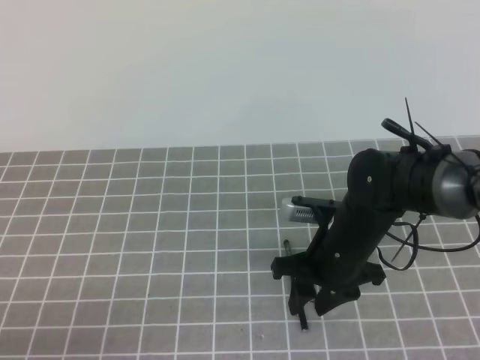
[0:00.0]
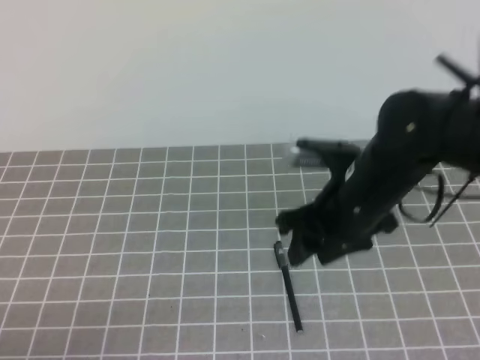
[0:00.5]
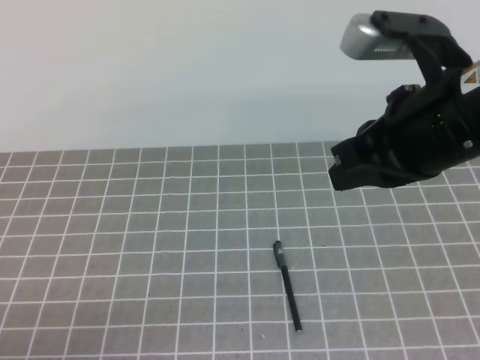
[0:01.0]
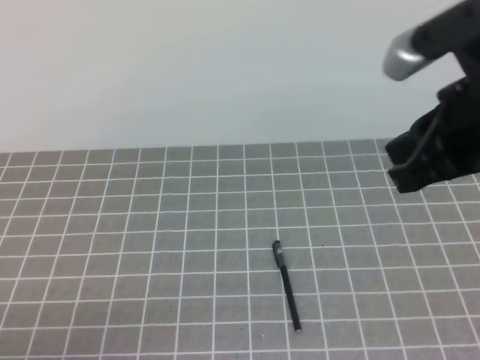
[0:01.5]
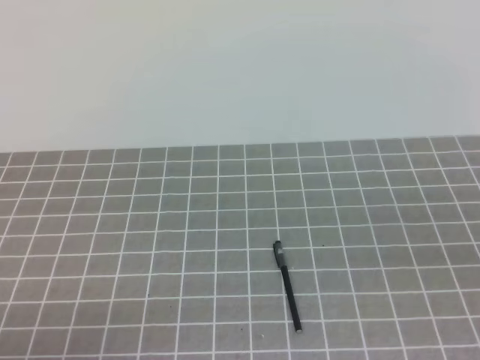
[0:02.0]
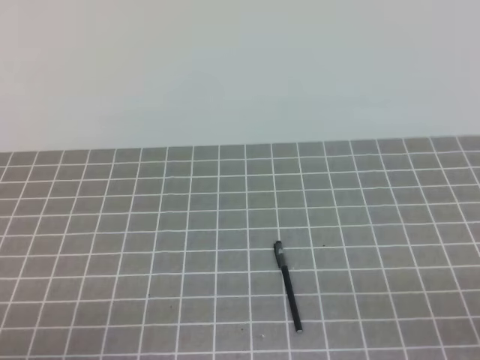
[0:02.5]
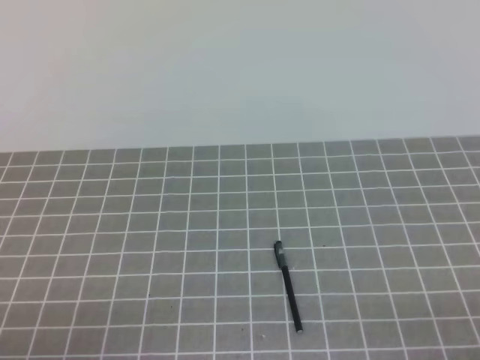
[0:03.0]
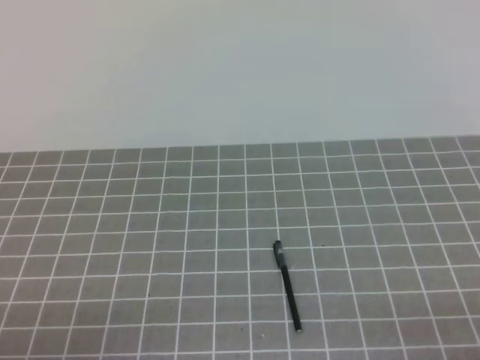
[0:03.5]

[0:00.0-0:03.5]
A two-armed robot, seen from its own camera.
Task of the whole recording: on the grey tablecloth, hold the pen cap in one hand and the pen in the other, then cover the pen cap.
Step, 0:00.0 to 0:03.5: Put the cap on the pen.
0:00.0 to 0:02.0: The right gripper moves backward, to the right and upward, approximately 30 cm, and closes.
0:02.0 to 0:03.5: The right gripper moves downward, backward and to the right, approximately 15 cm.
